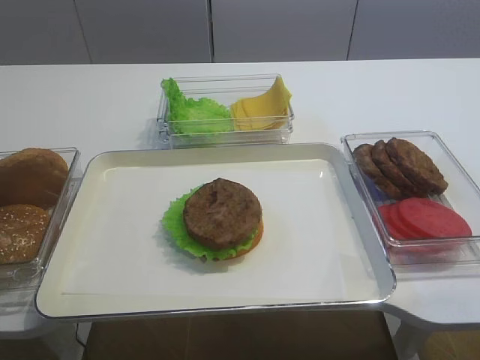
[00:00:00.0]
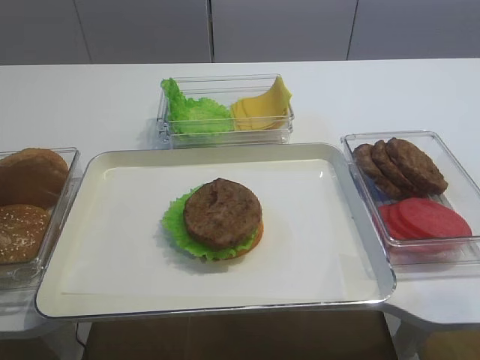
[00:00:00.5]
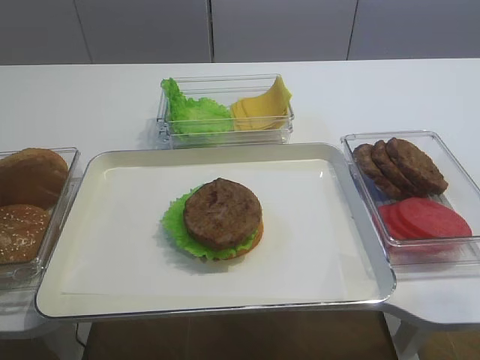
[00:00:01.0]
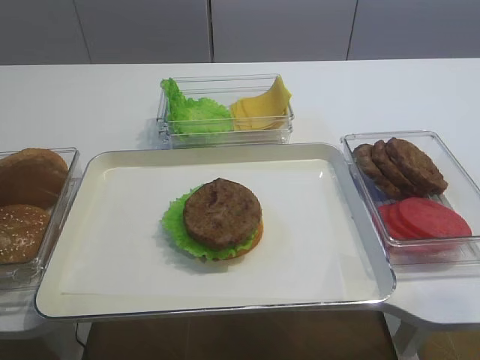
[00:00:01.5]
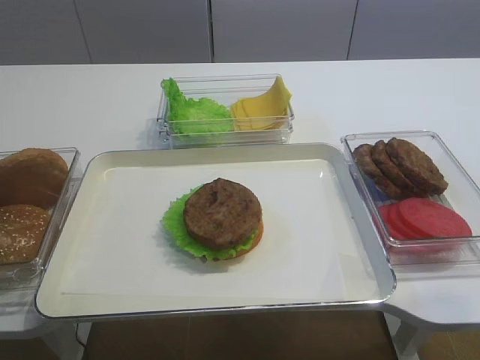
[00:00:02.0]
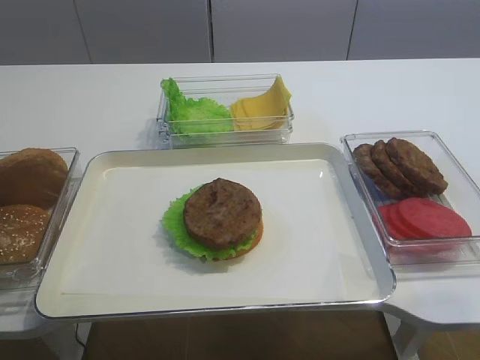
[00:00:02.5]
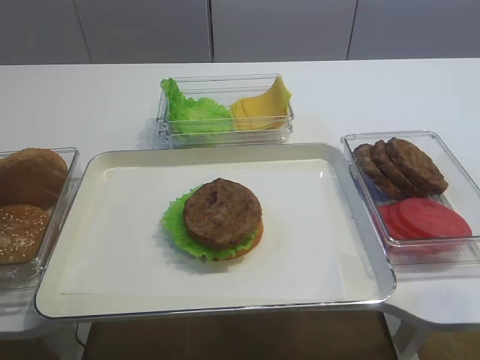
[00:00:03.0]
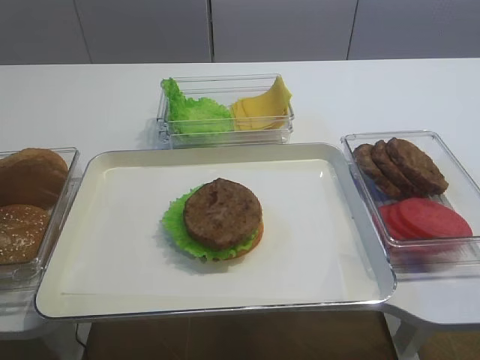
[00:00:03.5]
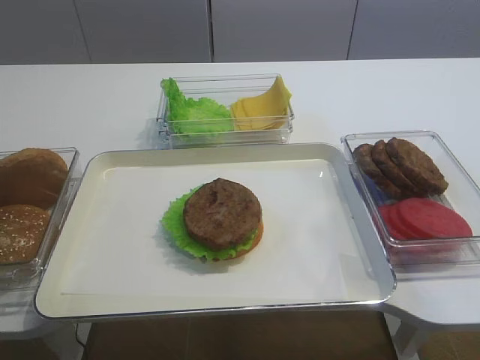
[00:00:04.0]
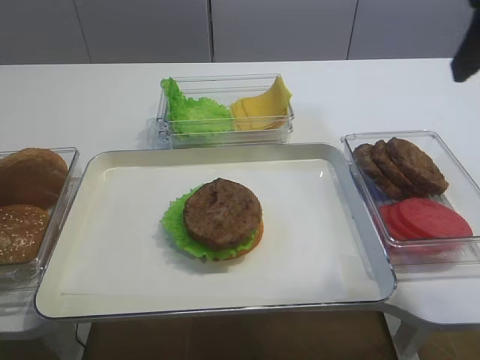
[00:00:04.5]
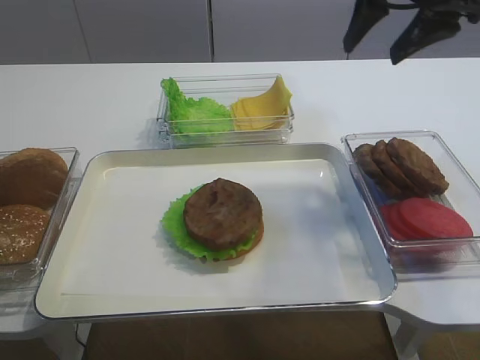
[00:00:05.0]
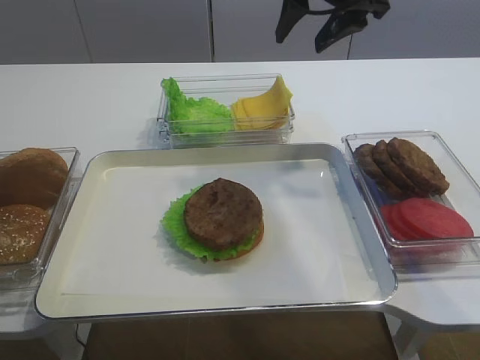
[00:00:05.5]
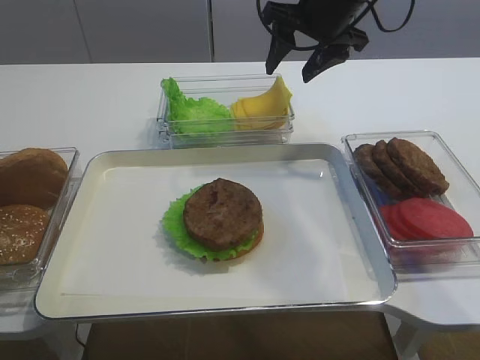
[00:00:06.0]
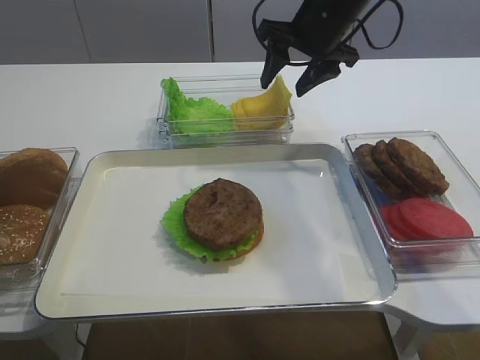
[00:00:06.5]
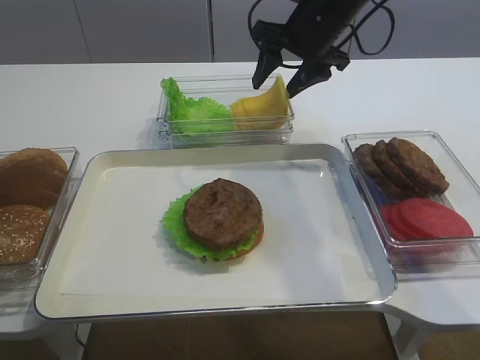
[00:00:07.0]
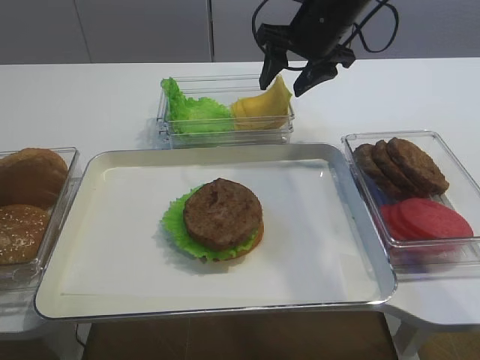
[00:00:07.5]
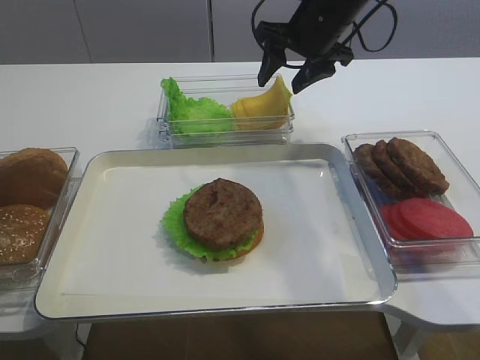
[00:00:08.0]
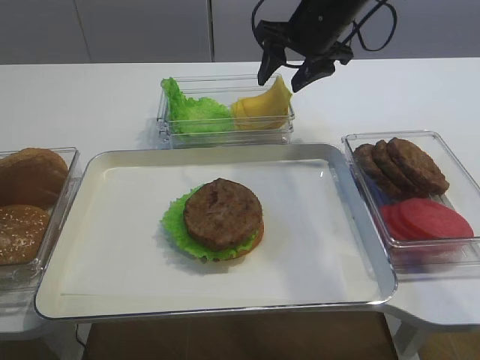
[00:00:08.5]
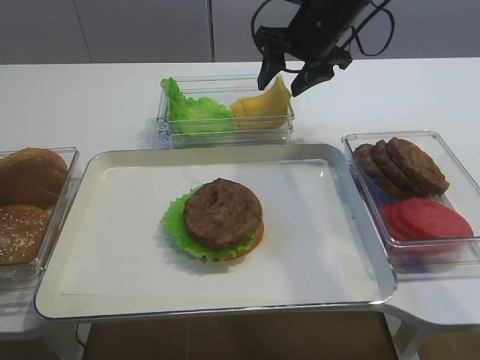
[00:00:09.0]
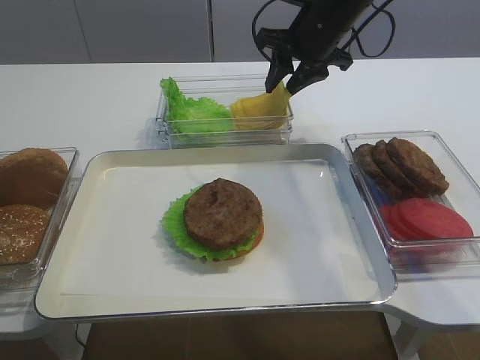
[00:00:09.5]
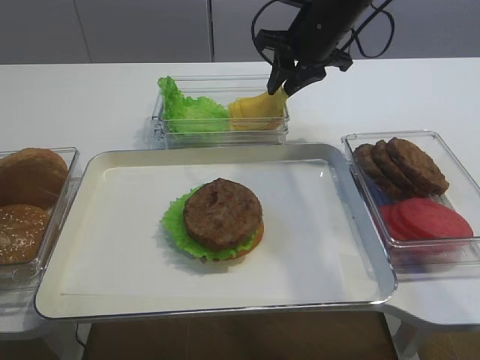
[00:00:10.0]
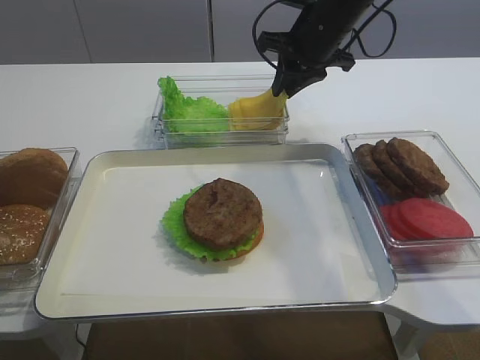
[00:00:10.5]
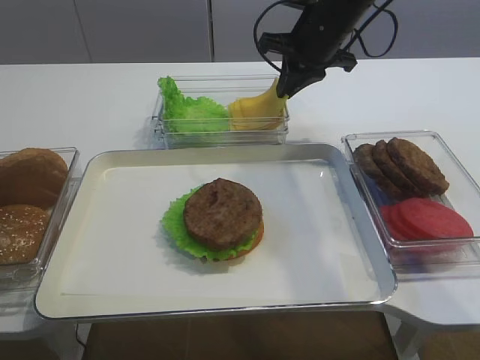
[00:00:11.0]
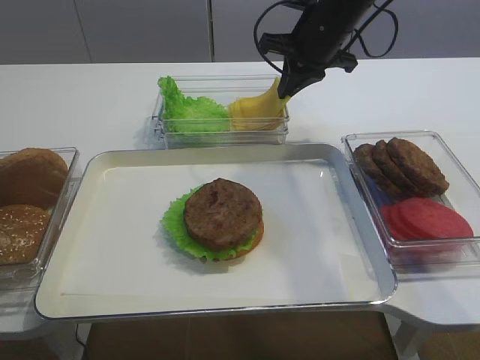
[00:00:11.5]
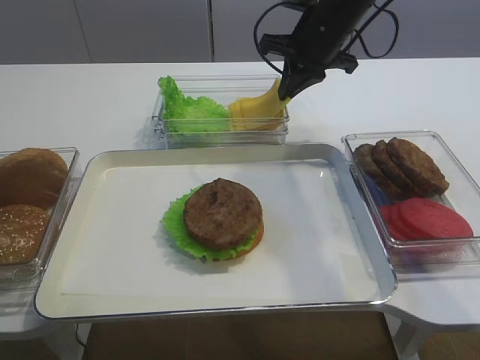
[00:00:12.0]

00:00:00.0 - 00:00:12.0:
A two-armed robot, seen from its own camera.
00:00:04.0 - 00:00:06.0: The right gripper is displaced forward by roughly 35 cm.
00:00:06.0 - 00:00:08.0: There are only small adjustments of the grippers.
00:00:08.0 - 00:00:10.0: The right gripper closes up.
00:00:10.0 - 00:00:12.0: The right gripper closes up.

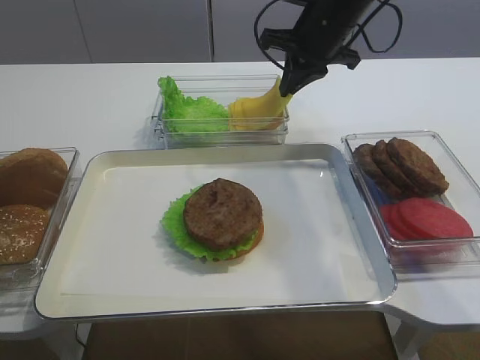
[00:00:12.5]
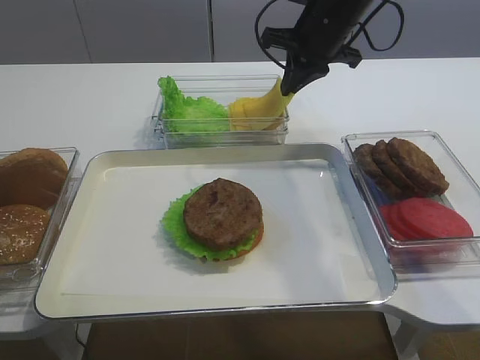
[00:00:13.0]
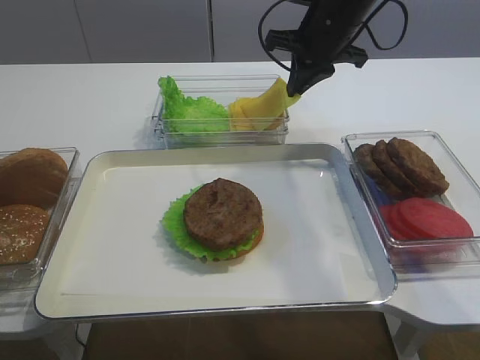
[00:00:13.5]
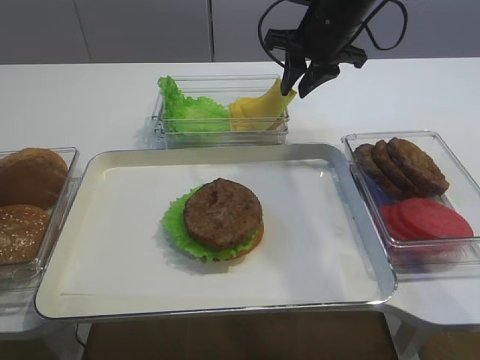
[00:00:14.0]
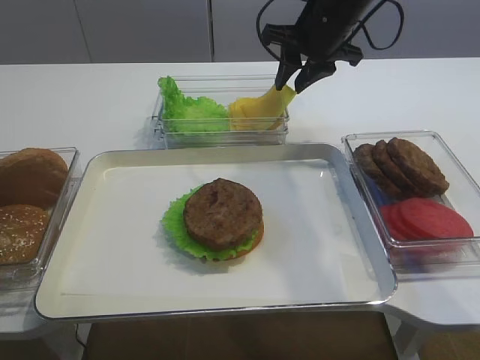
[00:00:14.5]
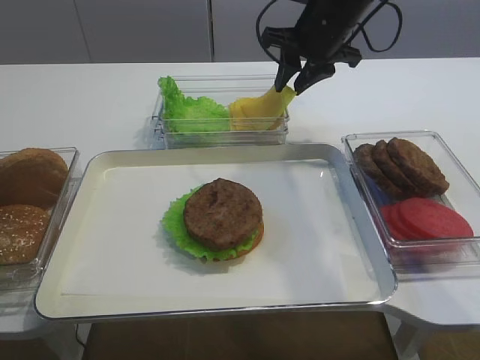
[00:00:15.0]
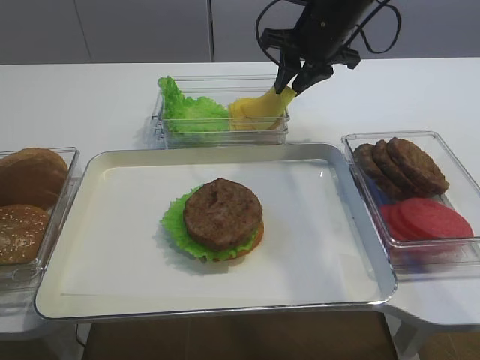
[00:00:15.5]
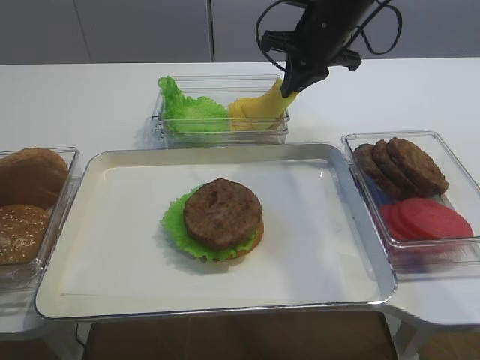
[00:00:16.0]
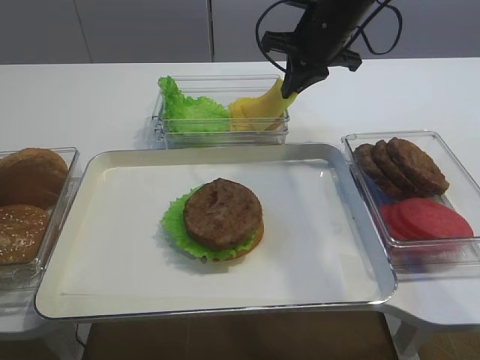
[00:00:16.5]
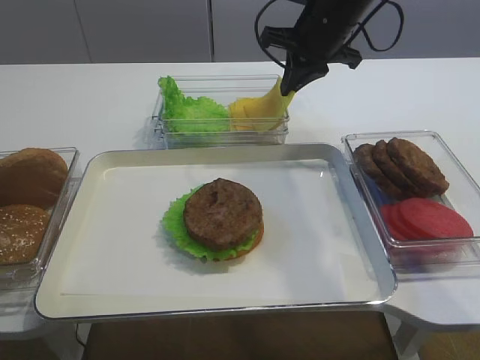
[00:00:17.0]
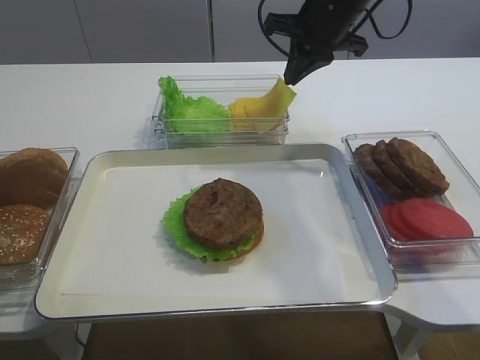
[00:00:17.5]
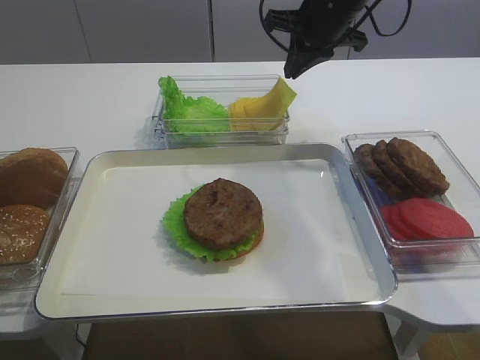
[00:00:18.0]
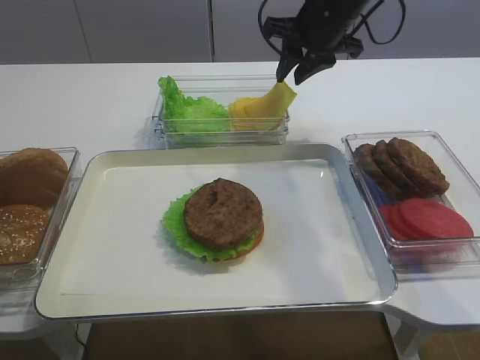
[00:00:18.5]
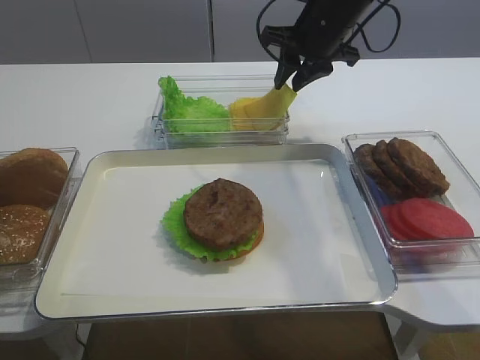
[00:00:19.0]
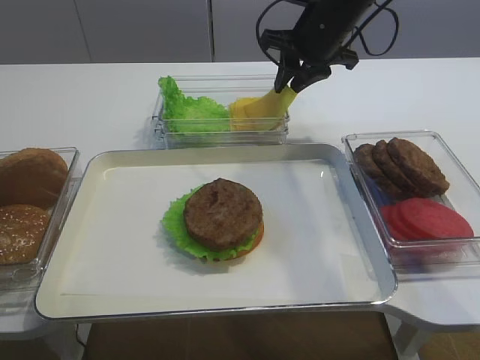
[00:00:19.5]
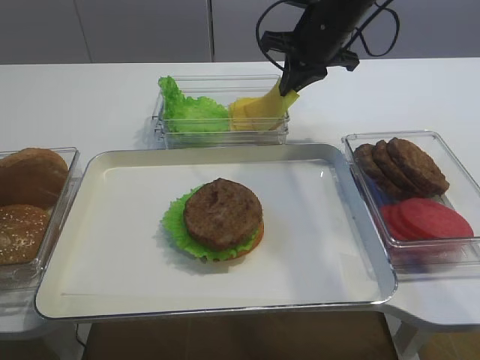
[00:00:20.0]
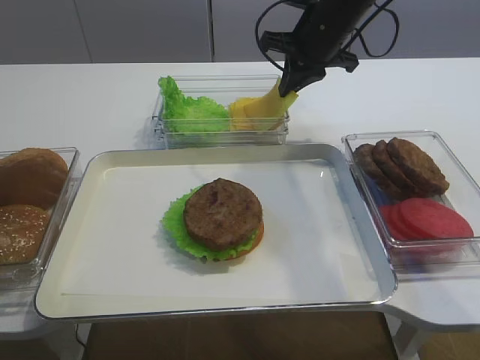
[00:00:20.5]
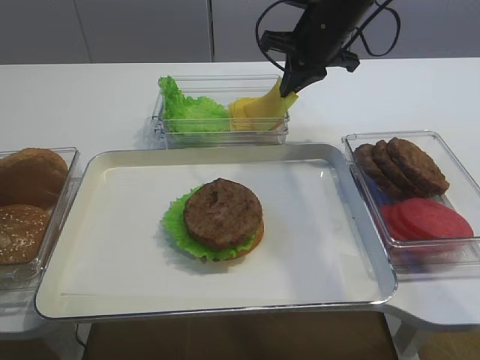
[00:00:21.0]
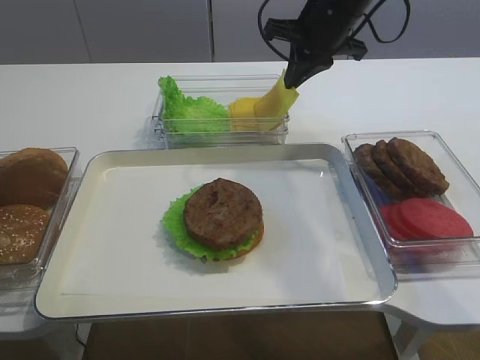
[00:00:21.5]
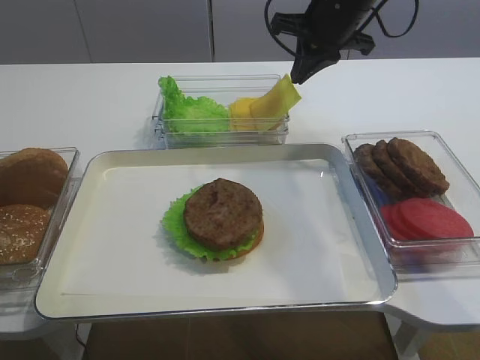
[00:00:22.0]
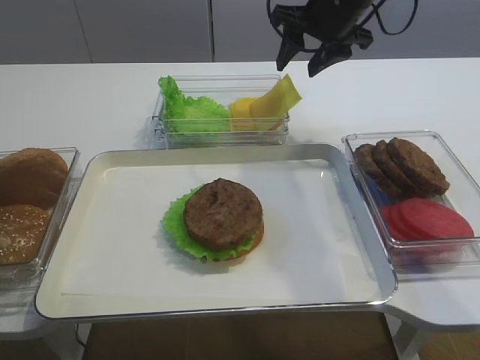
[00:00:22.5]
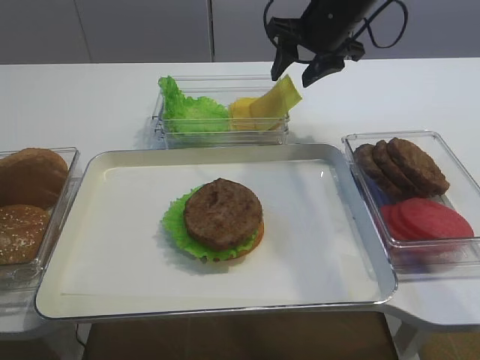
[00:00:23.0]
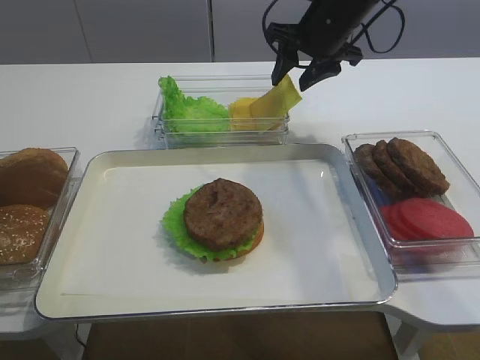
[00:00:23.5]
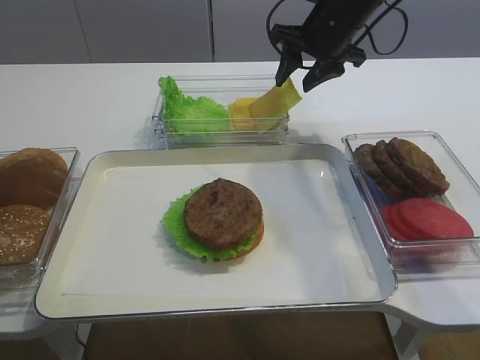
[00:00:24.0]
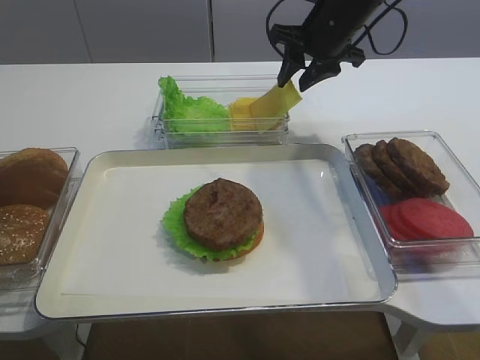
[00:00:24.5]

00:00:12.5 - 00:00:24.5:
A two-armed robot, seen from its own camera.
00:00:12.5 - 00:00:14.5: The right gripper opens.
00:00:14.5 - 00:00:16.5: The right gripper closes up.
00:00:16.5 - 00:00:18.5: The right gripper opens its fingers.
00:00:18.5 - 00:00:20.5: The right gripper closes.
00:00:20.5 - 00:00:22.5: The right gripper opens its fingers.
00:00:22.5 - 00:00:24.5: The grippers make only small movements.

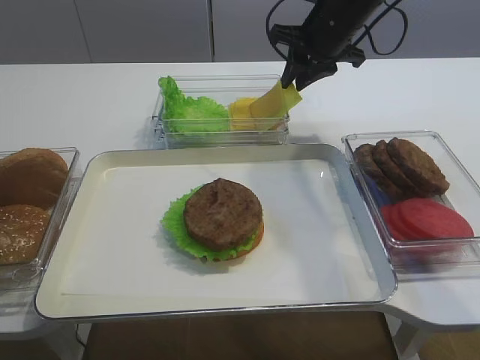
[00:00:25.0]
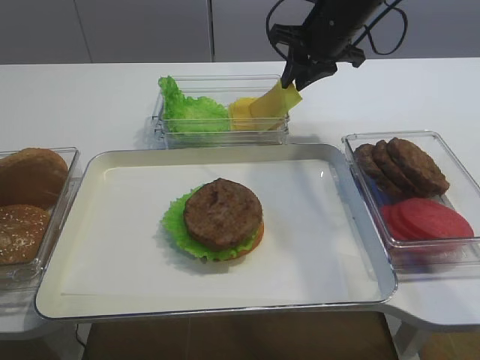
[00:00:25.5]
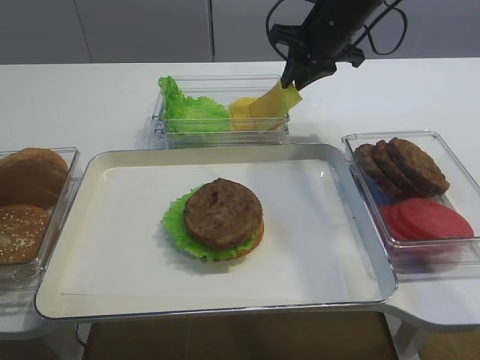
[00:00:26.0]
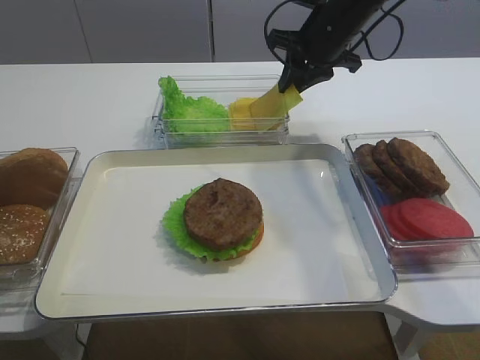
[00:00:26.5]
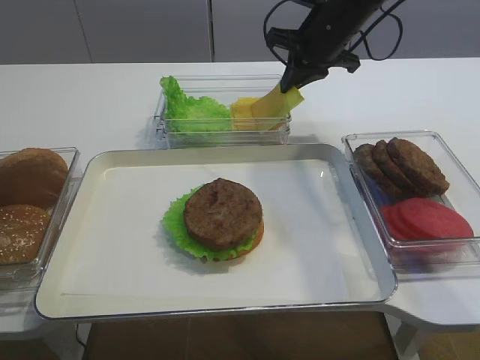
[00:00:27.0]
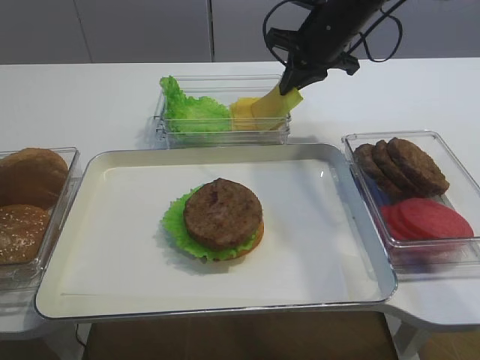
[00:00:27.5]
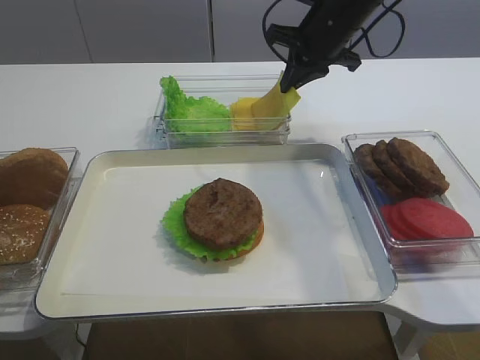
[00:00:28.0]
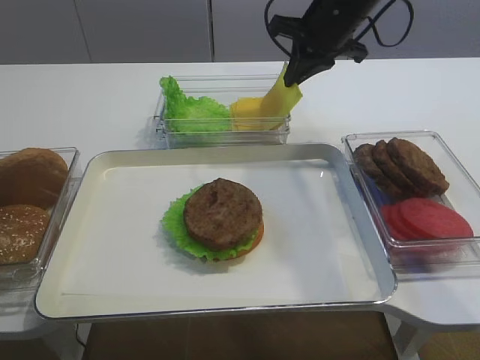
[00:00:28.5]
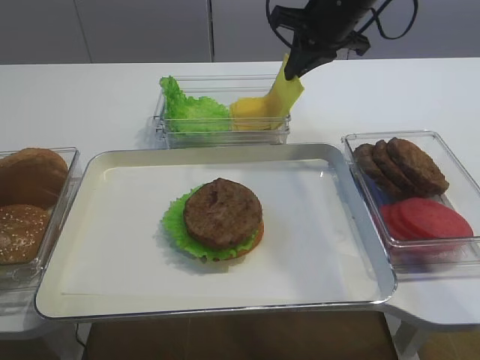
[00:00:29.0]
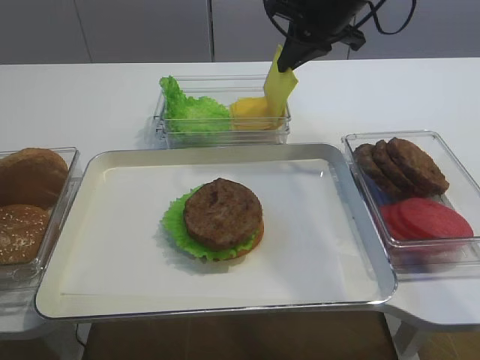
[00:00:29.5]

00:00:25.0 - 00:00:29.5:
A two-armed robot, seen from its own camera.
Step, 00:00:25.0 - 00:00:28.5: Pick up the cheese slice with the right gripper.
00:00:25.0 - 00:00:27.0: The two grippers keep their place.
00:00:27.0 - 00:00:29.5: There are only small adjustments of the grippers.
